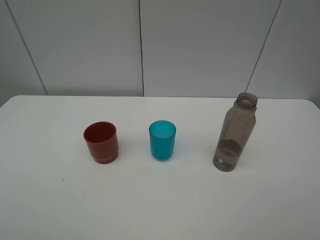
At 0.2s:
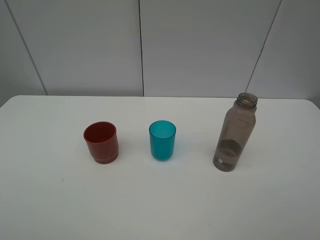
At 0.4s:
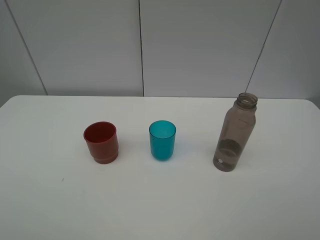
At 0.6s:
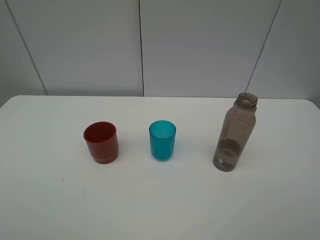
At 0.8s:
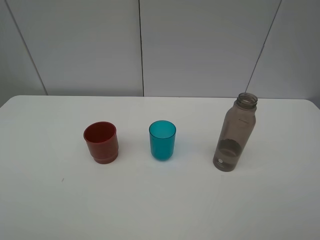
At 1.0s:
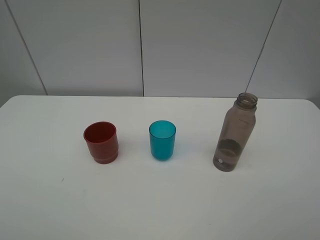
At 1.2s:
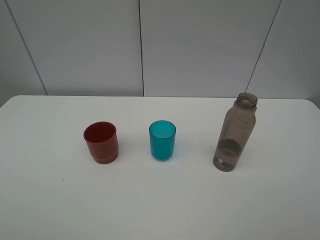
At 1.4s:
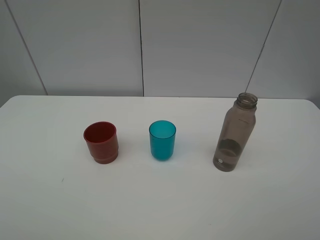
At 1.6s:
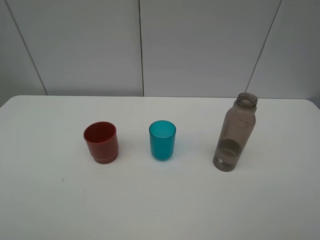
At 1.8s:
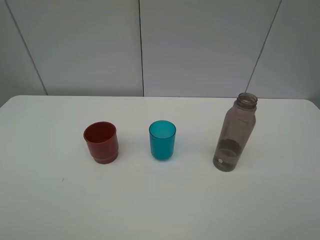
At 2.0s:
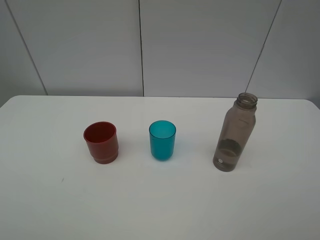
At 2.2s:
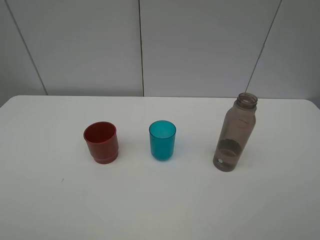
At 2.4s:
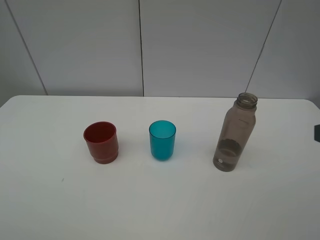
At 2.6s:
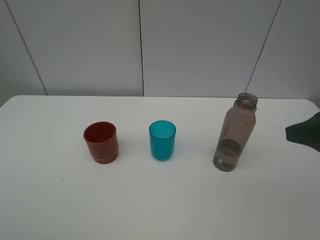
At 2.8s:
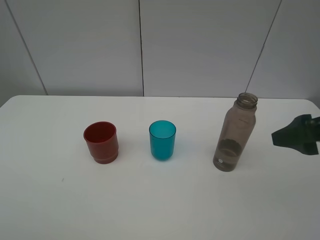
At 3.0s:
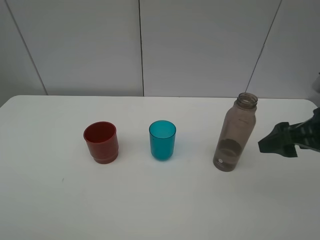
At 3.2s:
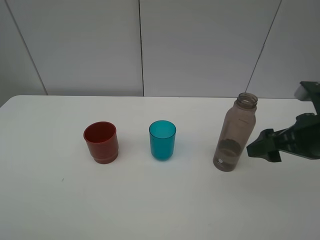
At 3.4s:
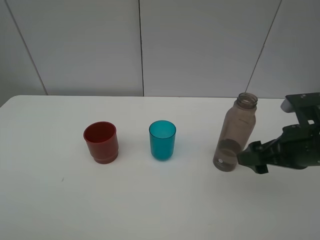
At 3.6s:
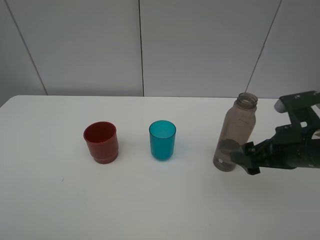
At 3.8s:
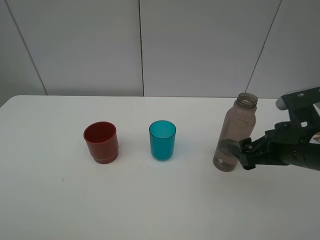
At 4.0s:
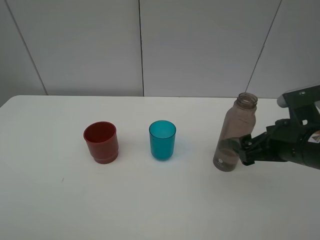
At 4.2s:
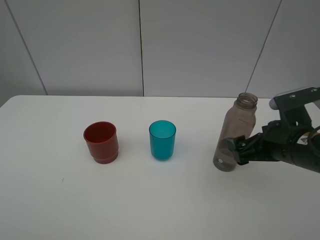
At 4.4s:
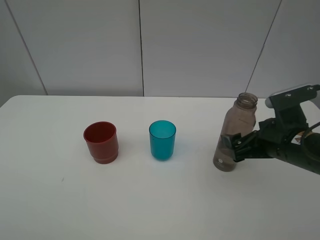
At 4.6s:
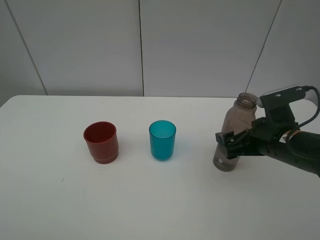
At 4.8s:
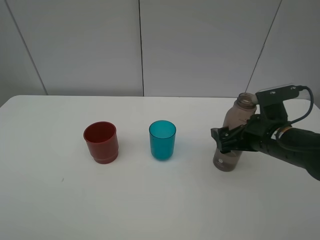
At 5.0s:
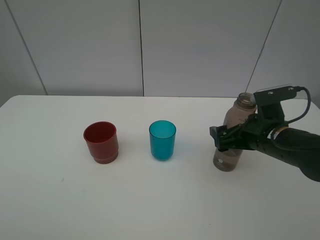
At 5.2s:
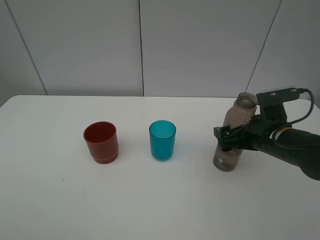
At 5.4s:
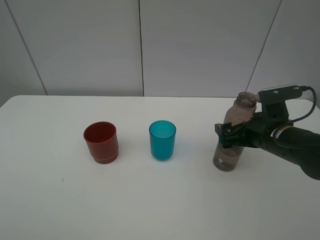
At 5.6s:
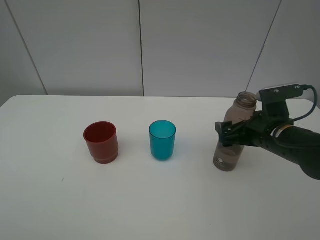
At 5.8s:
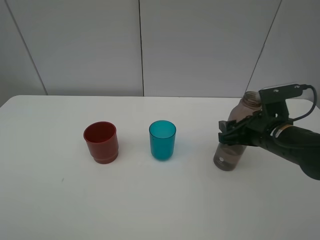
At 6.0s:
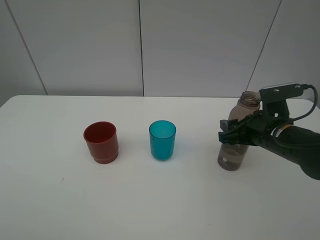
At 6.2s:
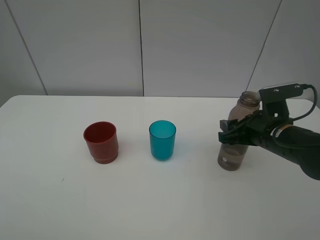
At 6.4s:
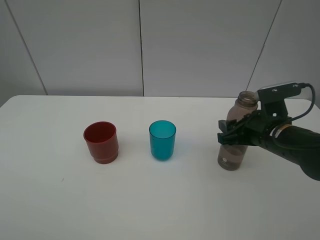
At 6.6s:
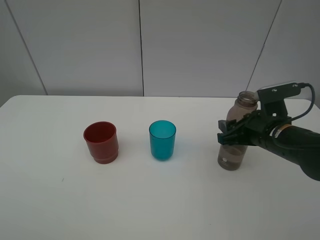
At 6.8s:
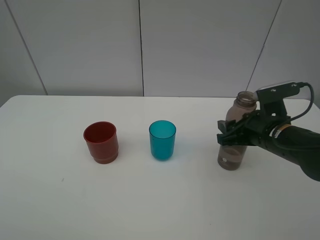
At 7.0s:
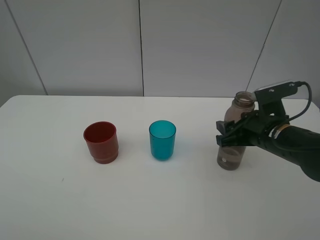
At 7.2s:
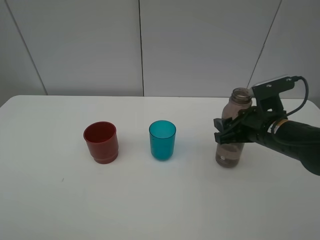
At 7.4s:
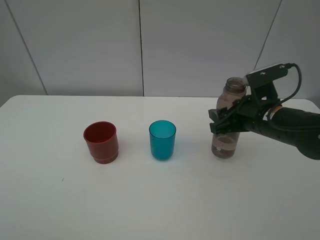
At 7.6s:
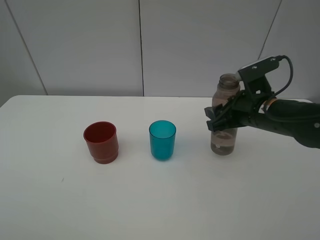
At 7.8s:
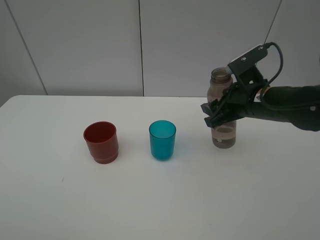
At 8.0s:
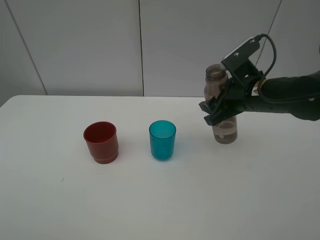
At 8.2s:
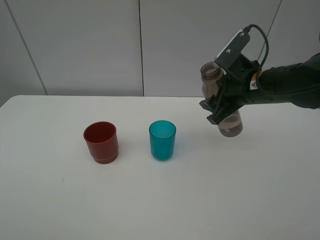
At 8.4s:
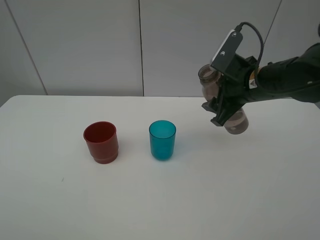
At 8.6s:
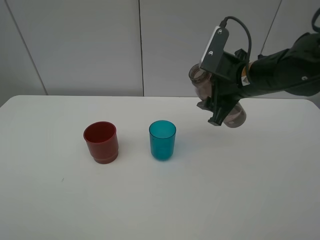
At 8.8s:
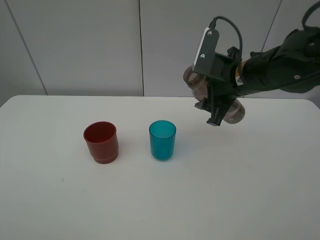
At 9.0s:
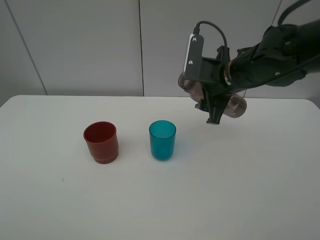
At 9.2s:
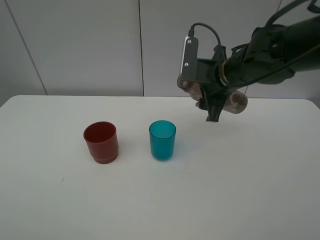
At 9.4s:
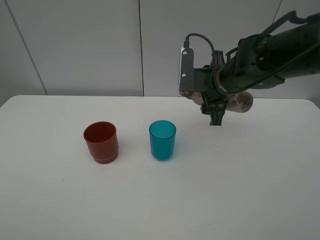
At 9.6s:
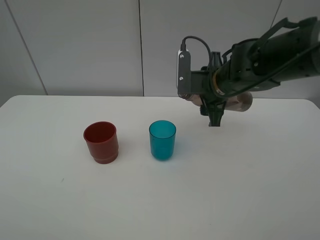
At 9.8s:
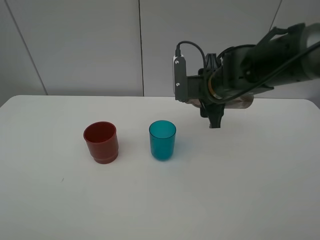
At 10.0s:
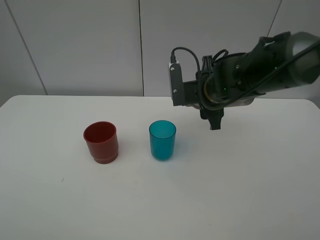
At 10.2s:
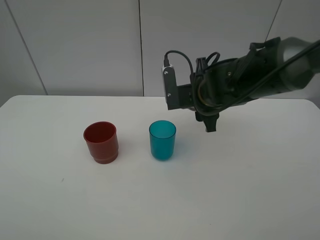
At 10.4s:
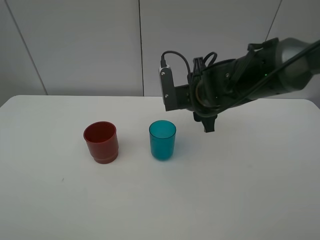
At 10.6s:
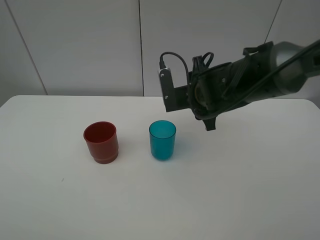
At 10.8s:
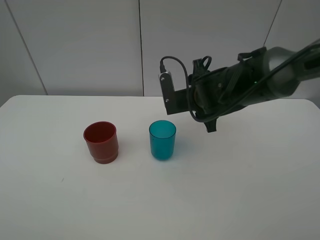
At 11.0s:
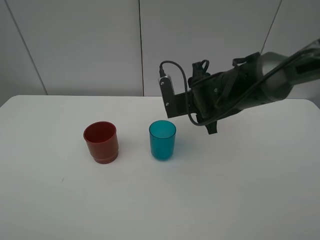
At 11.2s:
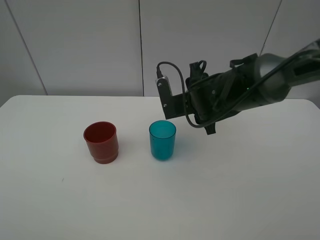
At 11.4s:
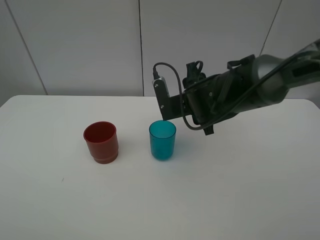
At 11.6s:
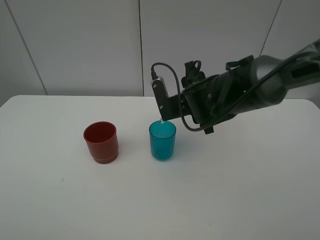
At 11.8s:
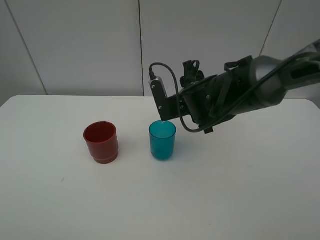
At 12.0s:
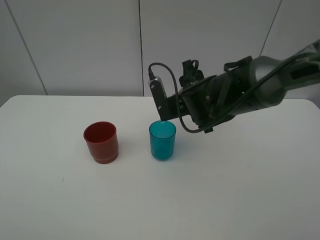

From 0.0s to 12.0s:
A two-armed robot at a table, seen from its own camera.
Task of the whole recording: pick up the bottle and pour water into the cup, then pick up the cup containing water and pour it into another cup.
Step, from 0.0s to 6.2s: Grasp the brown bottle with the right gripper.
From 0.0s to 1.6s: Both grippers stay put.
From 1.6s to 3.0s: The right gripper moves forward, roughly 20 cm.
From 3.0s to 4.4s: The right gripper moves downward and to the left, about 10 cm.
From 4.4s to 6.0s: The right gripper closes its fingers.
From 6.0s to 7.6s: The right gripper changes place by some 5 cm.
From 7.6s to 9.0s: The right gripper shifts some 5 cm to the left.
From 9.0s to 10.4s: The right gripper moves some 5 cm.
From 10.4s to 12.0s: The grippers stay close to where they were, moving slightly.

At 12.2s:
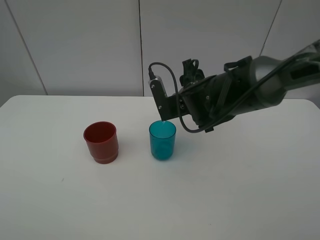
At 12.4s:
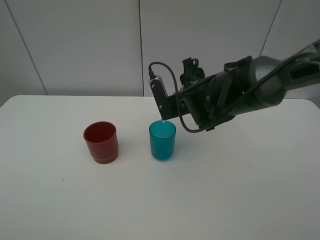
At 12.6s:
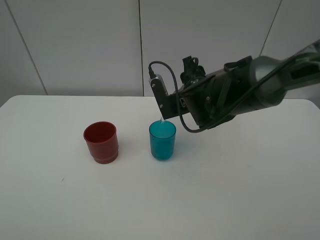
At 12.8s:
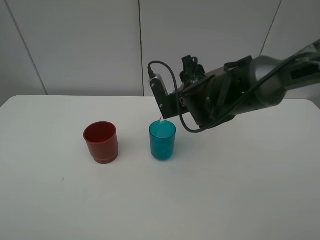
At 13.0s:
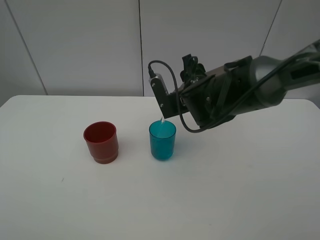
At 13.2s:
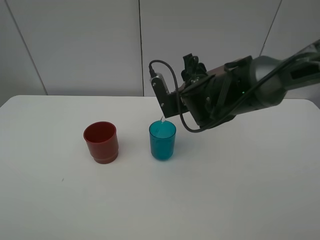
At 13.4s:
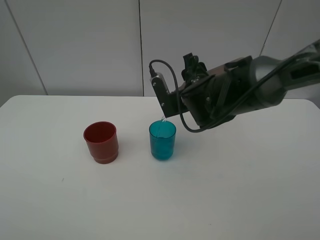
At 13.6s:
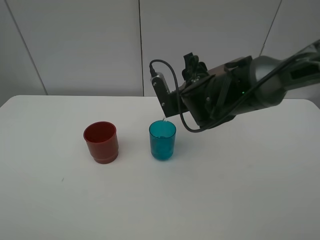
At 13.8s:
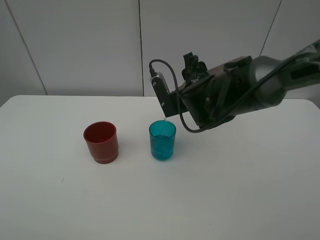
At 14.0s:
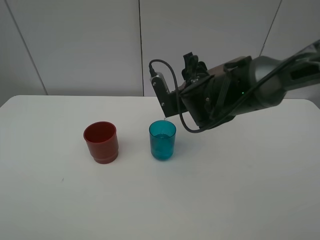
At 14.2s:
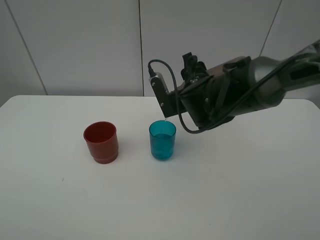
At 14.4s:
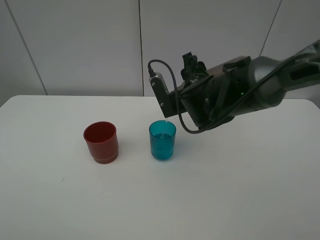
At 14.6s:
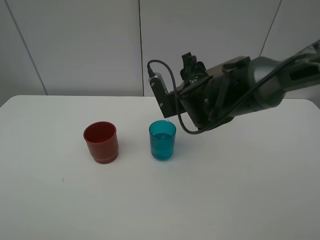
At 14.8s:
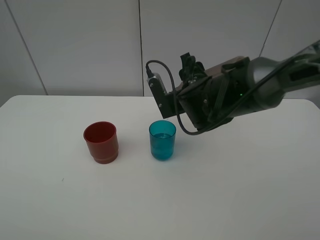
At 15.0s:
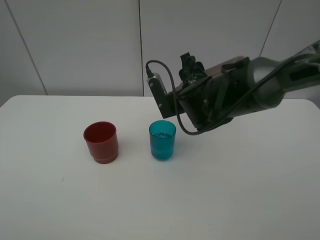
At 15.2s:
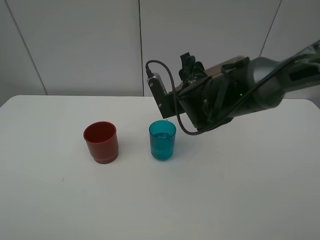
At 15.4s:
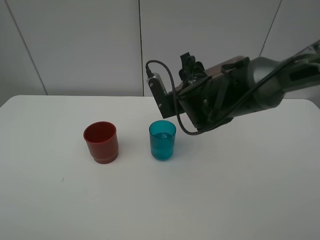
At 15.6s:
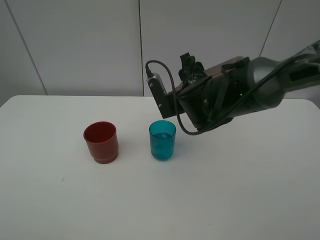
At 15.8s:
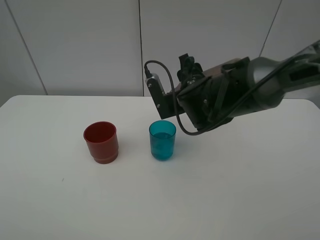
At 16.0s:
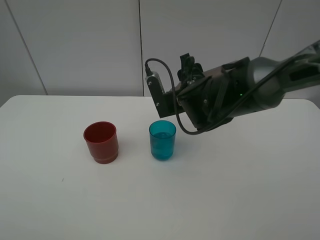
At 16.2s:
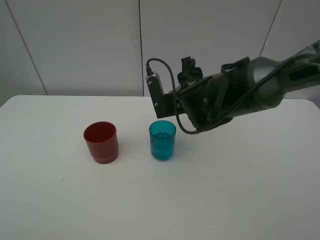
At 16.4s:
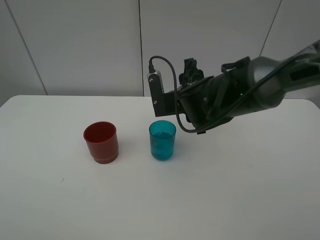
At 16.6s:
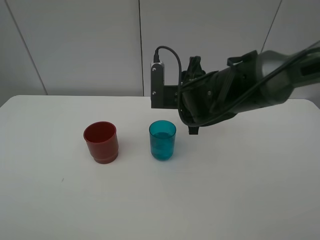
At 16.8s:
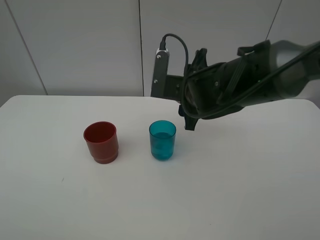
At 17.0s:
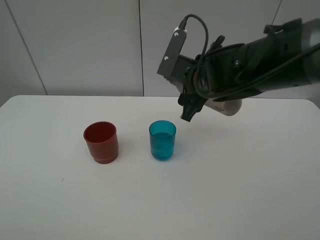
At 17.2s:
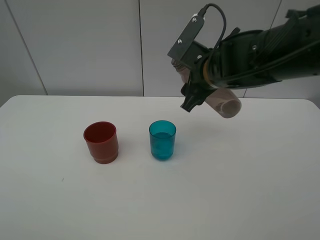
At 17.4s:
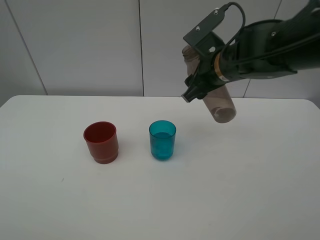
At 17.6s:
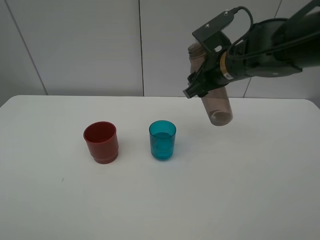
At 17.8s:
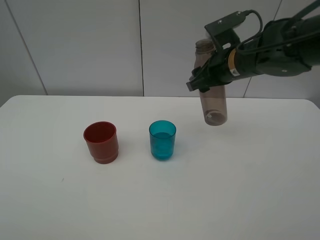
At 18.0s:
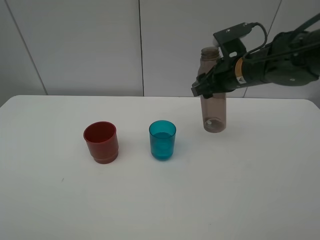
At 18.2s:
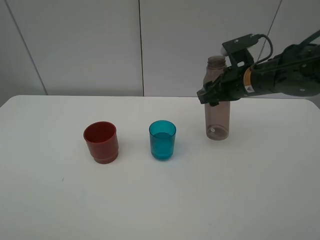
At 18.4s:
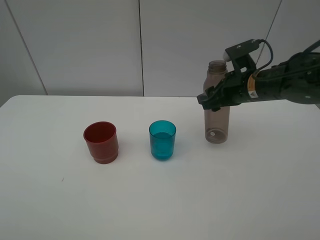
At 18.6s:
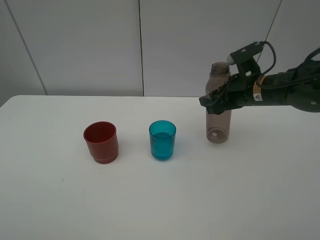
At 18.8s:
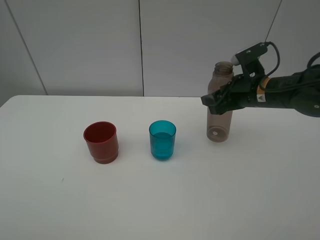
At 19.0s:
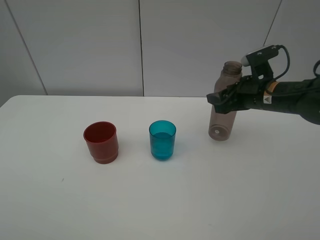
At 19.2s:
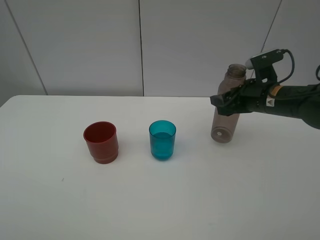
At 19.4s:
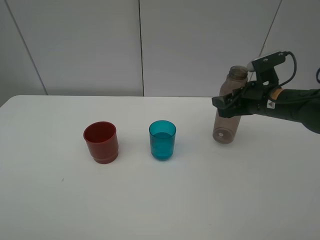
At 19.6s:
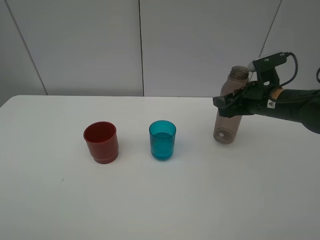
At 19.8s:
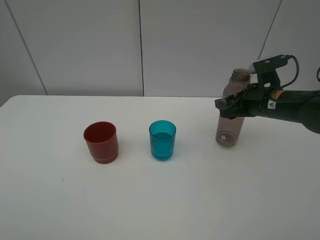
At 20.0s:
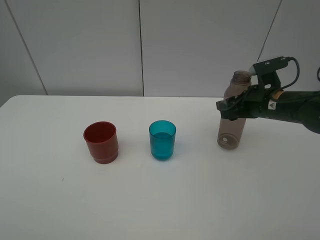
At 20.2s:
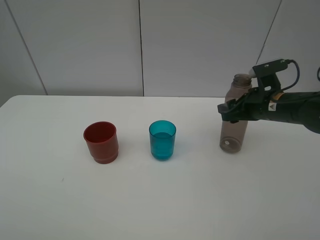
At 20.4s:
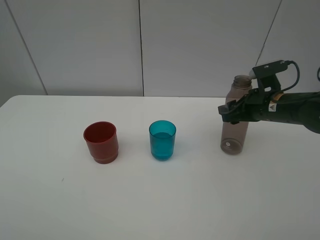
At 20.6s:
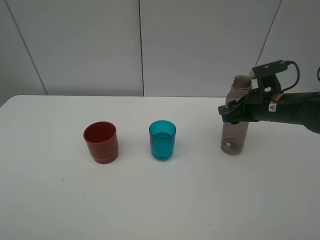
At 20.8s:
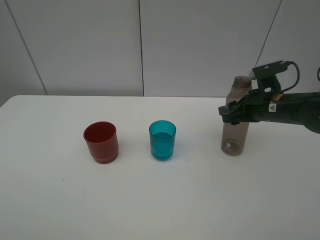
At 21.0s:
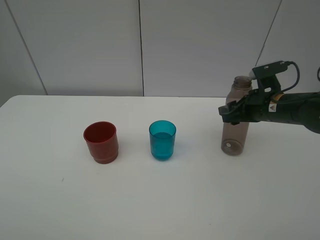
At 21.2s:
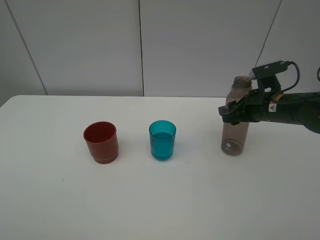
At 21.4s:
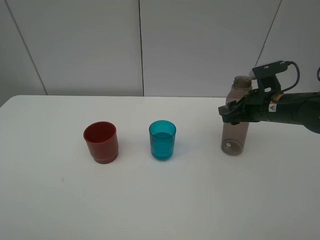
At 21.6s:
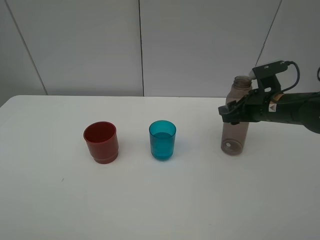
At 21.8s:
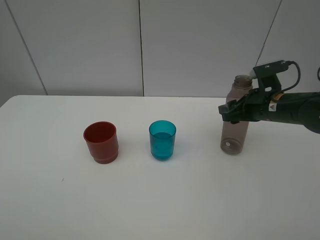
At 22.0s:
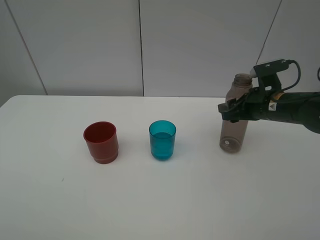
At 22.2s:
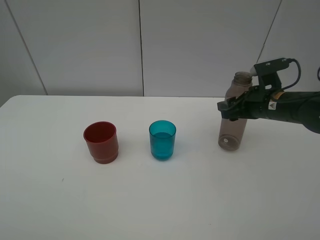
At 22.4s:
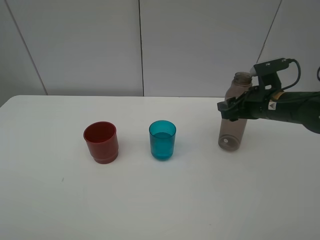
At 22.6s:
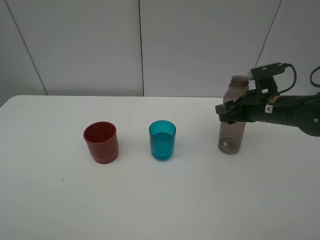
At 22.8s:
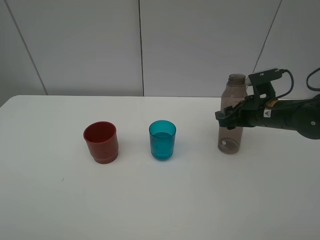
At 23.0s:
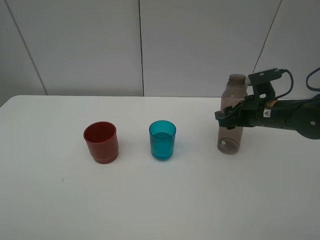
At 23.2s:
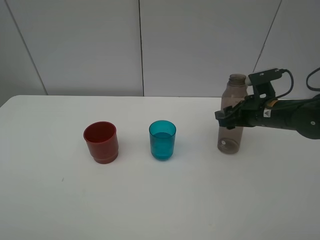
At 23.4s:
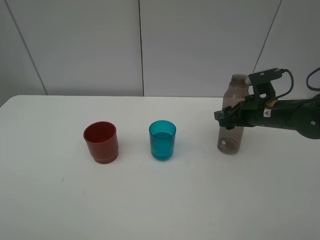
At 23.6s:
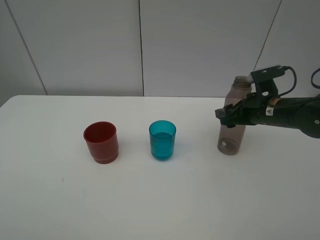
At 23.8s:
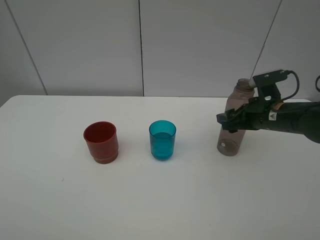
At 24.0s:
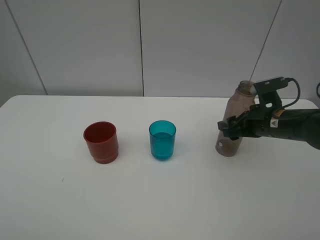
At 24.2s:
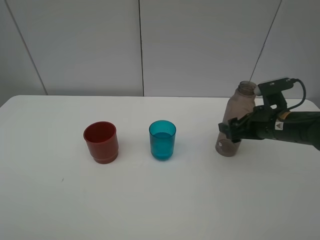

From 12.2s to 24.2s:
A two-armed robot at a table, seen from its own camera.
Task of the whole recording: pick up the bottle and pour water into the cup, then pick up the cup containing water and pour it into another cup.
Step, from 16.2s to 23.2s: Place the brown bottle with the right gripper.
From 12.2s to 13.8s: The grippers stay close to where they were, moving slightly.
From 13.8s to 15.2s: Both grippers stay about where they are.
From 16.6s to 18.2s: The right gripper is displaced to the right by approximately 10 cm.
From 18.2s to 19.8s: The right gripper ends up roughly 5 cm from where it was.
From 19.8s to 21.2s: The grippers move only a little.
From 21.2s to 22.6s: Both grippers stay put.
From 22.6s to 24.2s: The right gripper opens up.
